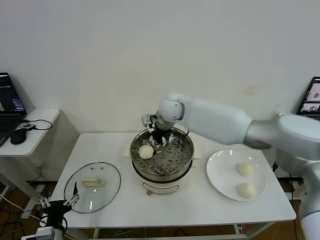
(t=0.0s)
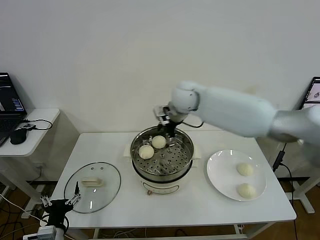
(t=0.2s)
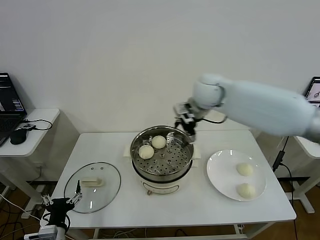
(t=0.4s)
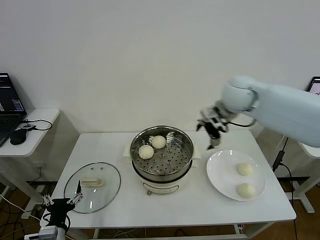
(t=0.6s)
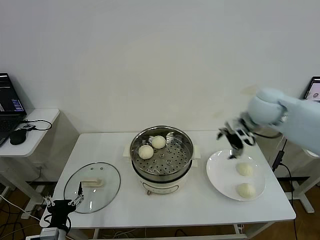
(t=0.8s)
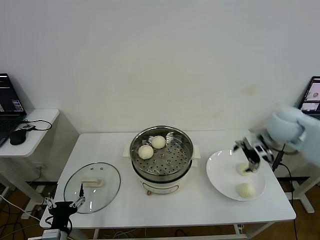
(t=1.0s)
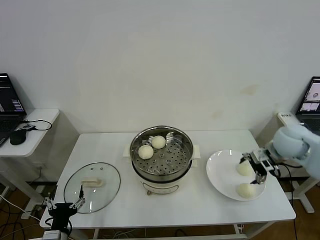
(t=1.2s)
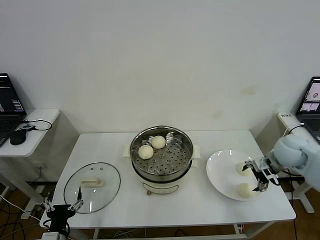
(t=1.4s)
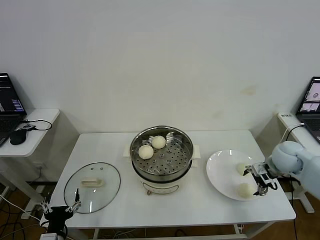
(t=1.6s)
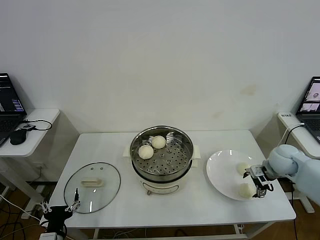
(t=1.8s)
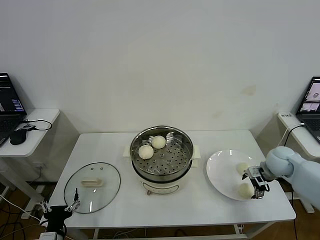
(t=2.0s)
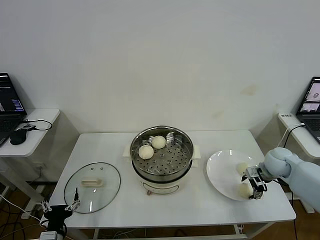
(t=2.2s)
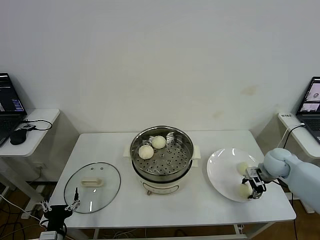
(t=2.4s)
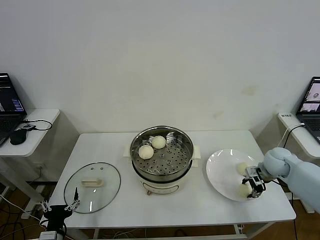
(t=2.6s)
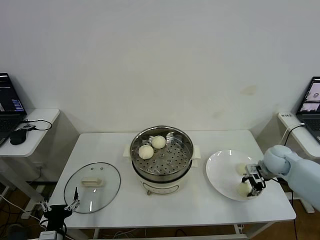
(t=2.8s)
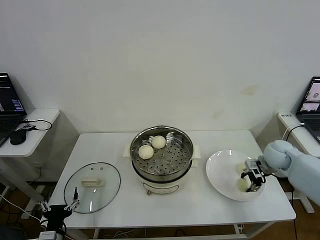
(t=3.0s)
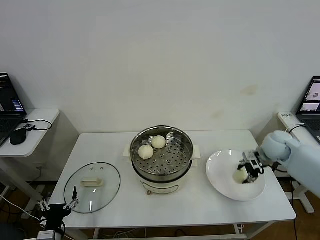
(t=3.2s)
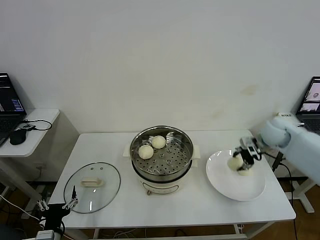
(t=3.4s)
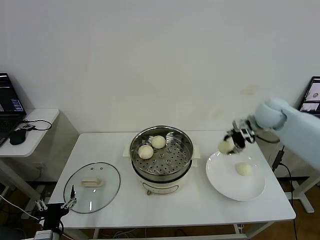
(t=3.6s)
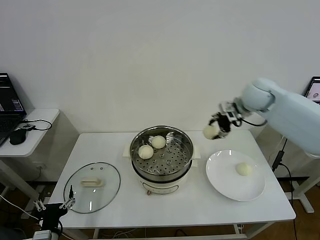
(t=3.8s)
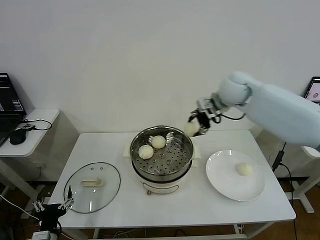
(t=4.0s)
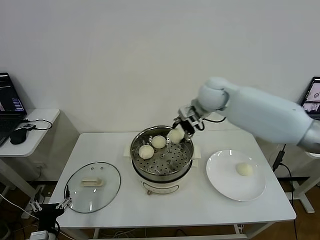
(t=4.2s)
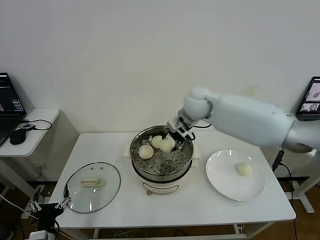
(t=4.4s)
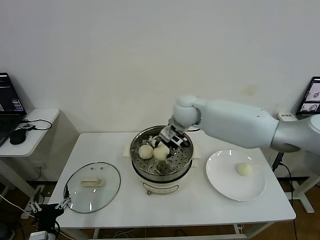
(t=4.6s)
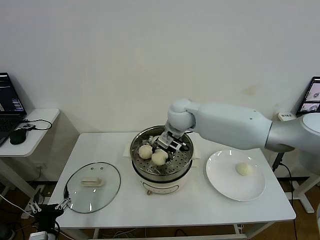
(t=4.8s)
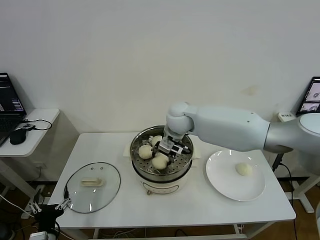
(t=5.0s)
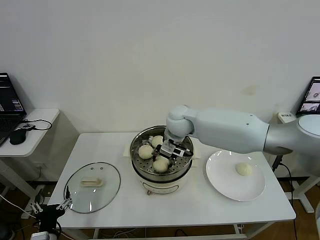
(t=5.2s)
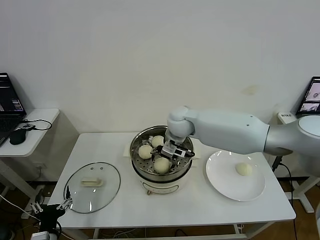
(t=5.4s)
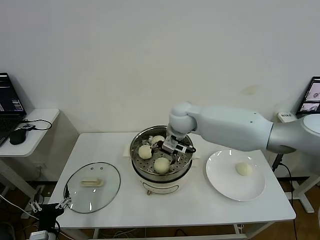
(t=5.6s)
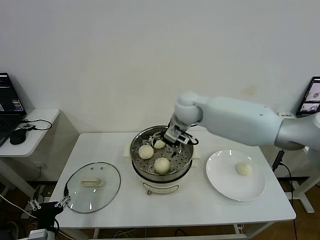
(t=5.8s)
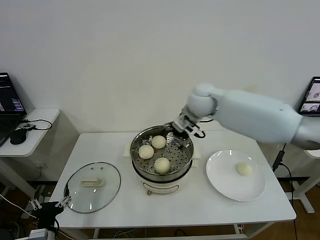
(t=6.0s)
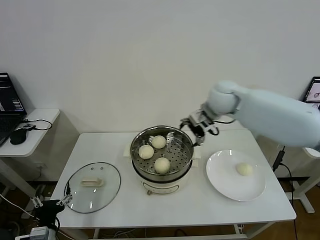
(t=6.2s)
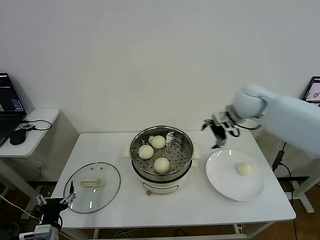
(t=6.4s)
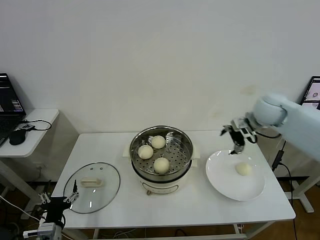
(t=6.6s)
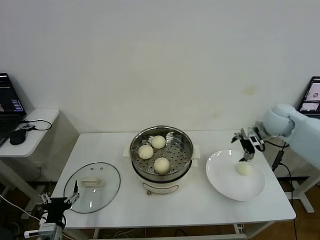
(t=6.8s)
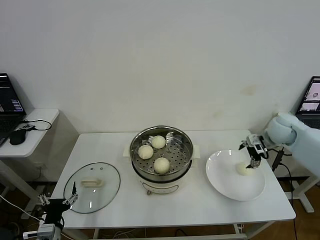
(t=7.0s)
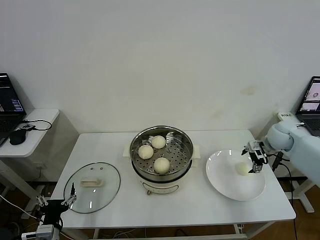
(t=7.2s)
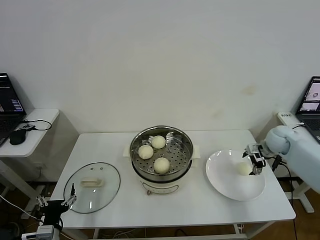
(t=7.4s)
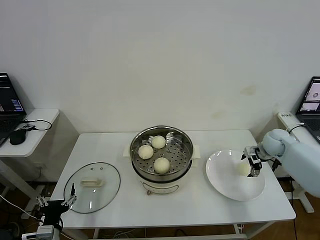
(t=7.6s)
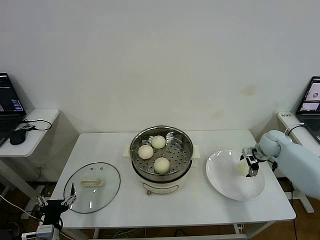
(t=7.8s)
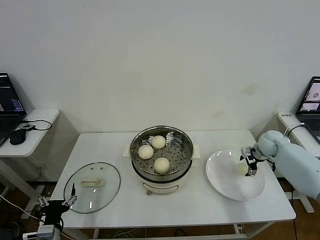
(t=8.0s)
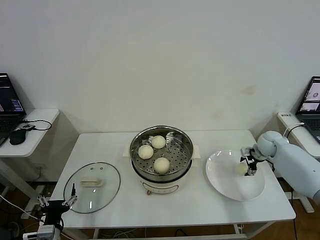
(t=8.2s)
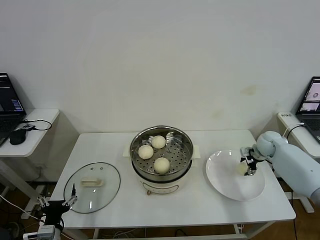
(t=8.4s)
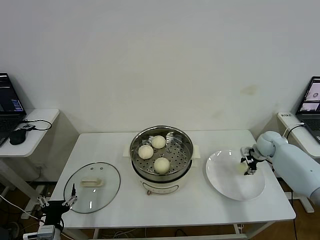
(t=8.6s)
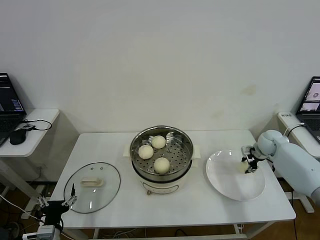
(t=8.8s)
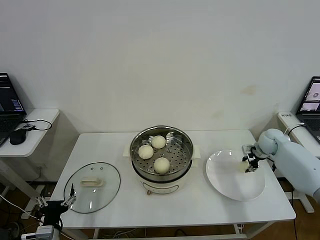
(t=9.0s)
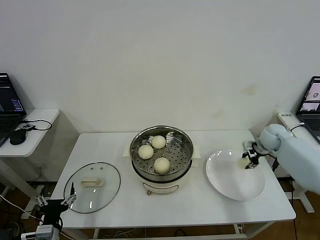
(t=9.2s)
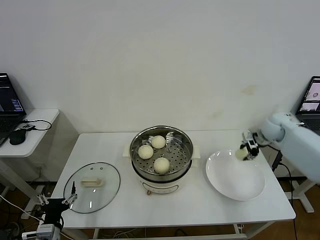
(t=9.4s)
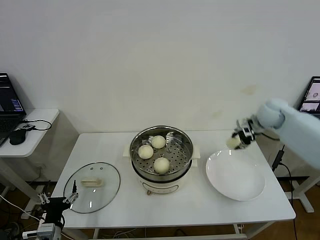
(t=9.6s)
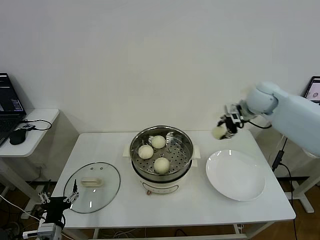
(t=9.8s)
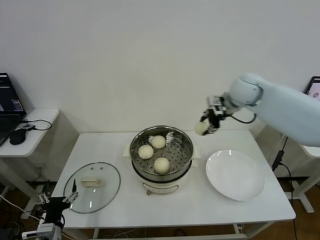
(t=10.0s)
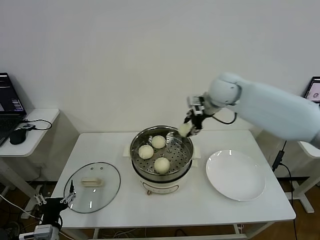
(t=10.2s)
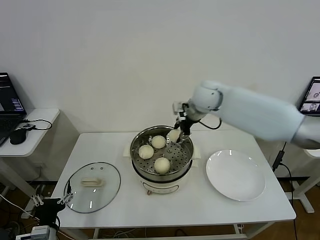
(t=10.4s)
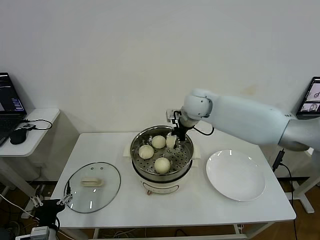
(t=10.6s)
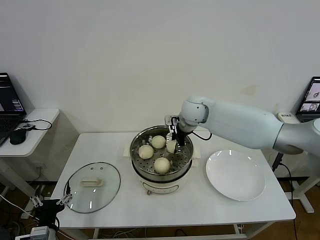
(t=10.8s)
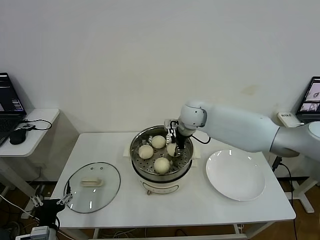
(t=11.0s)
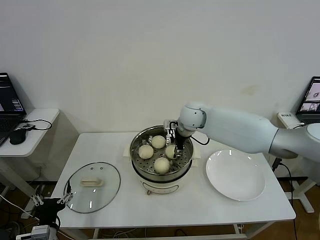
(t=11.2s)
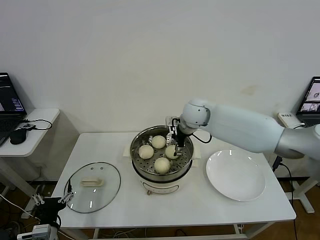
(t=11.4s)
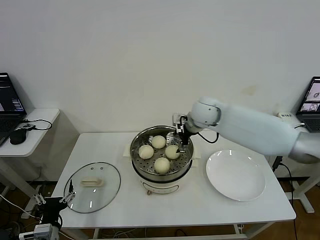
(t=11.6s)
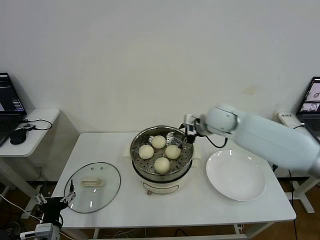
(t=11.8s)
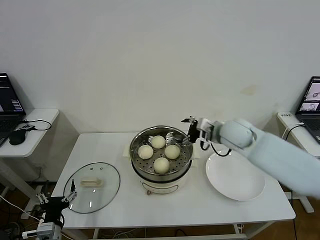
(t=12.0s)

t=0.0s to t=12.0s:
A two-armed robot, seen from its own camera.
Step, t=0.0s to t=2.6s: Grasp the baozi in the plate with right gripper.
Step, t=2.8s to t=5.4s: Place the baozi on the steamer with right gripper.
Step, t=5.6s to t=8.4s: Grasp the baozi in the plate with right gripper.
Step, t=8.8s to t=11.4s: Place the baozi on the steamer with right gripper.
t=0.0s to t=1.6s: The right gripper travels to the right by some 35 cm.
t=1.6s to t=3.0s: The right gripper closes.
t=3.0s to t=4.4s: The right gripper moves to the left and upward, about 35 cm.
t=4.4s to t=6.0s: The right gripper opens its fingers.
t=6.0s to t=7.6s: The right gripper is displaced to the right and downward by approximately 35 cm.
t=7.6s to t=9.0s: The right gripper closes its fingers.
t=9.0s to t=10.4s: The right gripper shifts about 35 cm to the left and upward.
t=10.4s to t=12.0s: The right gripper shifts approximately 15 cm to the right, backward and downward, and opens up.

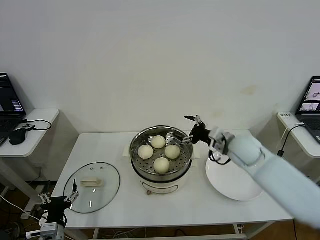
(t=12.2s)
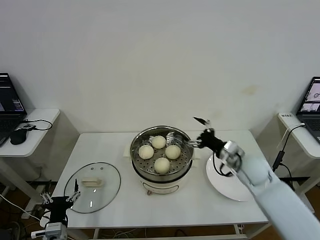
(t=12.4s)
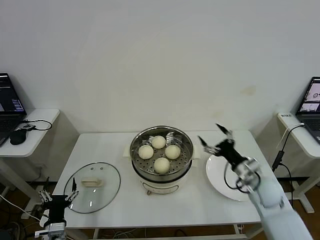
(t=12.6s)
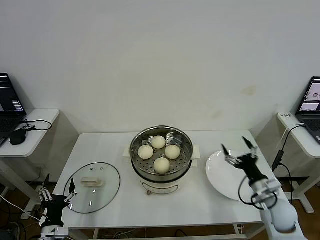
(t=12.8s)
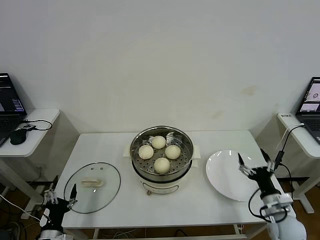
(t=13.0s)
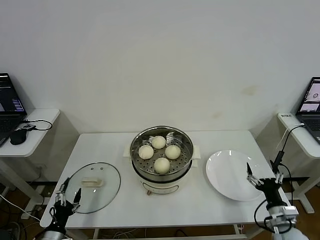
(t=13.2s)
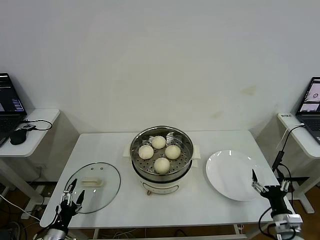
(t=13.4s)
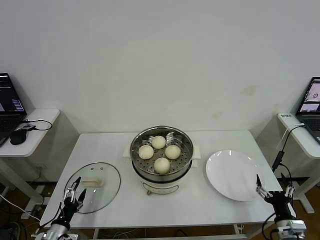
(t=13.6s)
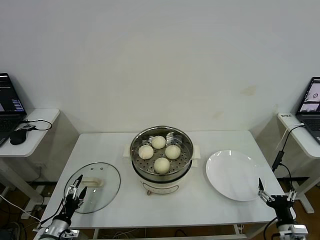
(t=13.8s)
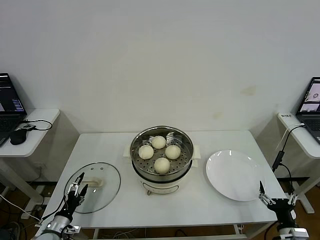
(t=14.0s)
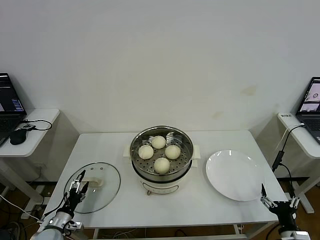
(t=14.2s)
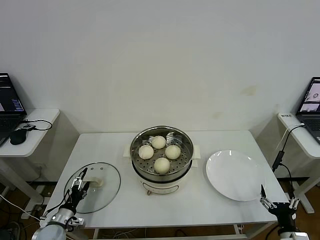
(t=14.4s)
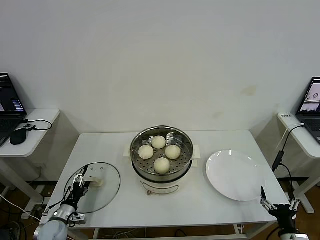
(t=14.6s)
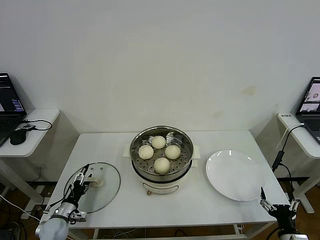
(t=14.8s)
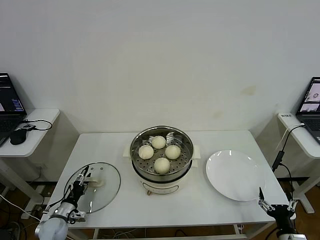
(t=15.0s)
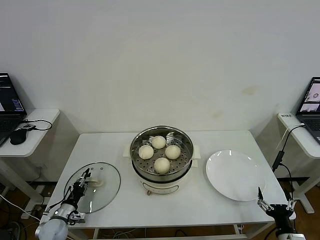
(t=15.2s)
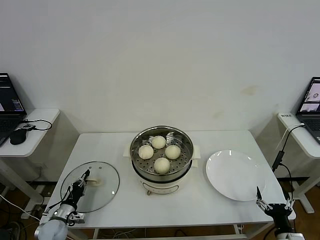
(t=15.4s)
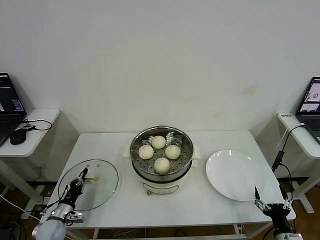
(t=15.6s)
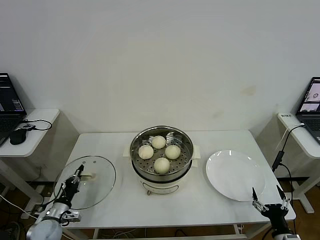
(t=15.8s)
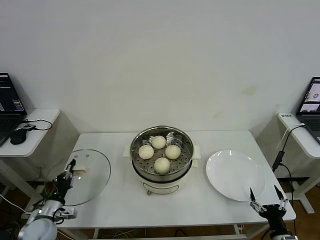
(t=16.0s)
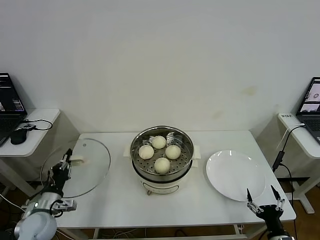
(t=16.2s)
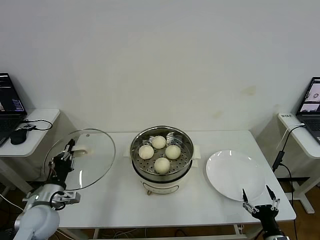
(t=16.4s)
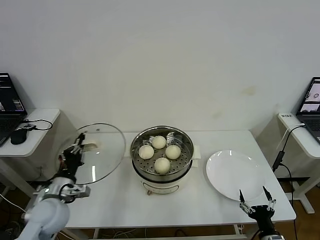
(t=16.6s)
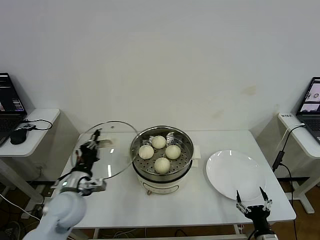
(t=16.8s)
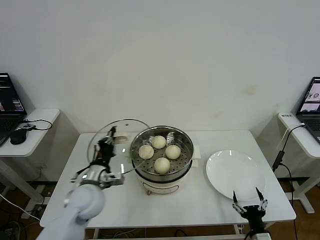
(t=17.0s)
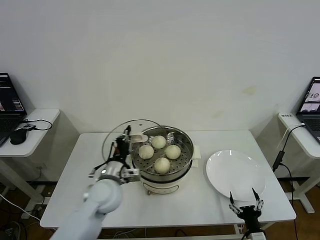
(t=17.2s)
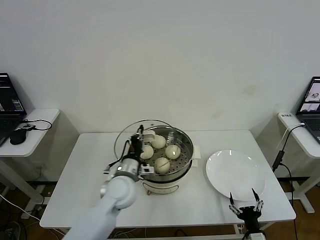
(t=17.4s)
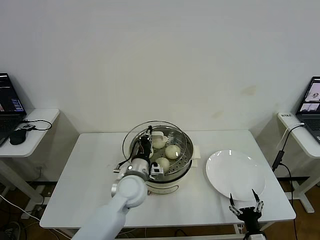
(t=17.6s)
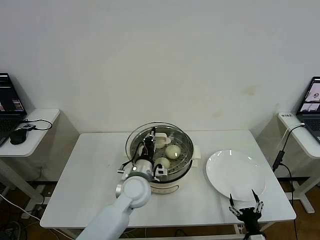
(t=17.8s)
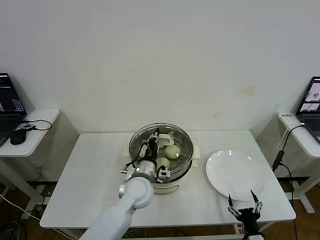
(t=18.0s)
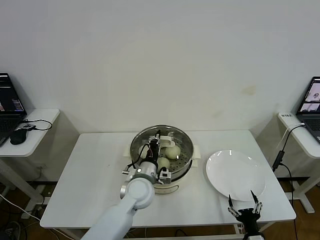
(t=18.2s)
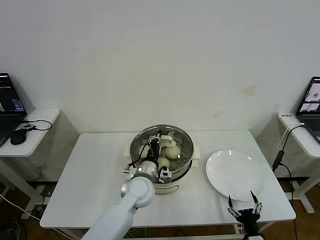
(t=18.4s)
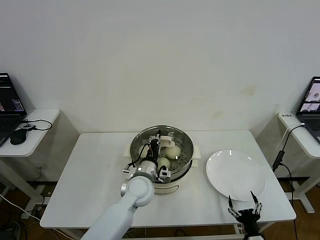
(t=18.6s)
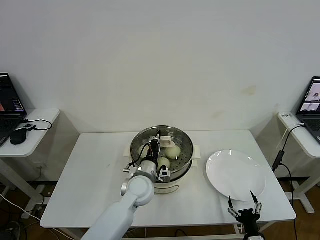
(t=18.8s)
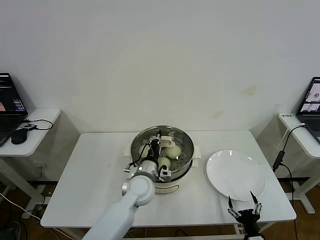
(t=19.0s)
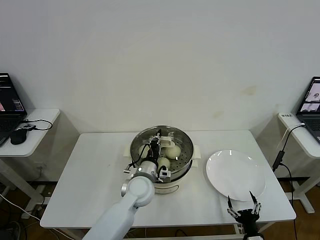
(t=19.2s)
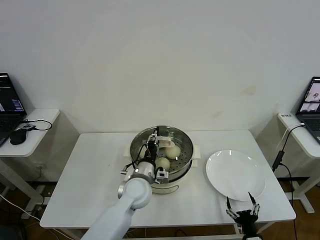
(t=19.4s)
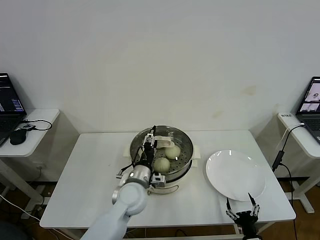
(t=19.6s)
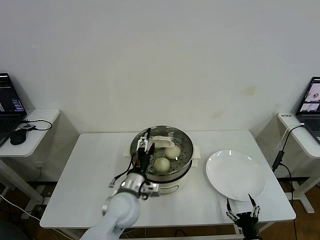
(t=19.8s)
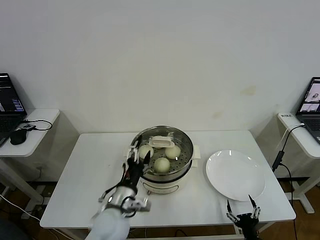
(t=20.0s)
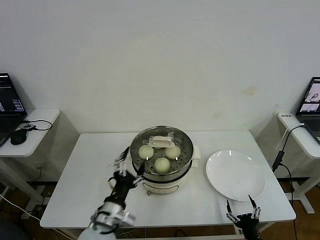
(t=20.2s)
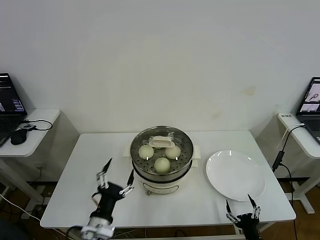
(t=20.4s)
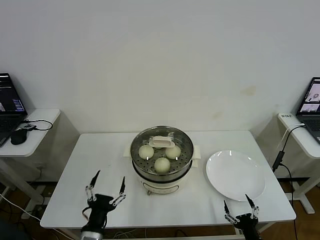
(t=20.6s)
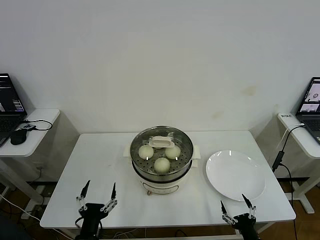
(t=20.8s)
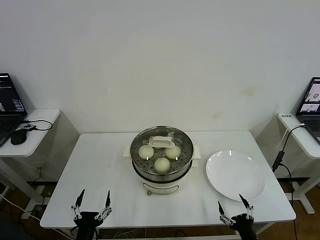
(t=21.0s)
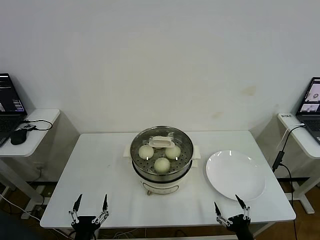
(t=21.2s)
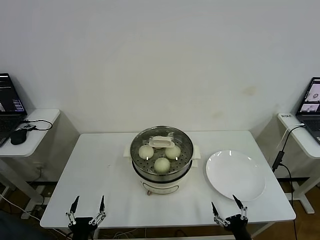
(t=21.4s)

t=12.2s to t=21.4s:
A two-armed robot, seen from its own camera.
Step, t=12.2s to t=15.4s: Grasp the pot lid with left gripper.
Step, t=15.8s to t=19.6s: Place the pot lid on the steamer with left gripper.
t=12.2s to t=13.8s: The right gripper heads backward, downward and to the right, covering roughly 40 cm; the left gripper is displaced downward and to the left by about 10 cm.
t=13.8s to t=15.2s: The left gripper travels forward by roughly 10 cm, and closes its fingers.
t=15.2s to t=16.8s: The right gripper moves to the left, about 5 cm, while the left gripper moves upward and to the right, approximately 25 cm, and closes.
t=16.8s to t=18.4s: The left gripper is displaced to the right by approximately 20 cm.
t=18.4s to t=19.8s: The left gripper shifts by some 5 cm, and opens up.
t=19.8s to t=21.4s: The right gripper ends up approximately 5 cm from where it was. Meanwhile the left gripper is displaced backward, to the left and downward by about 30 cm.
